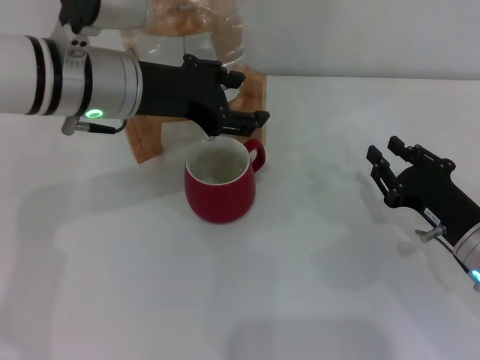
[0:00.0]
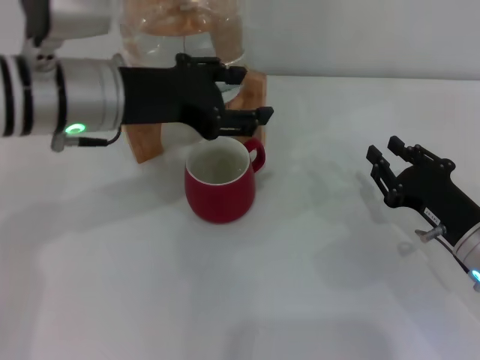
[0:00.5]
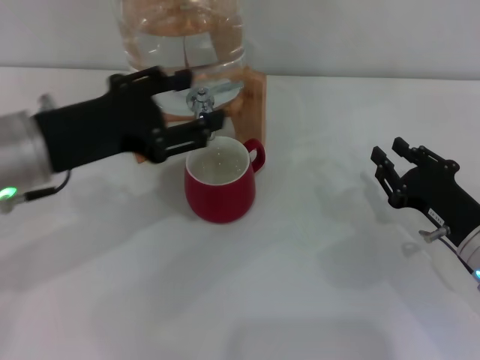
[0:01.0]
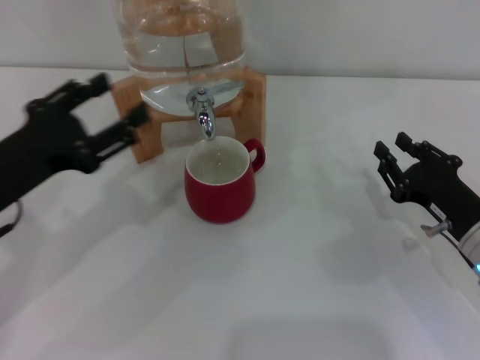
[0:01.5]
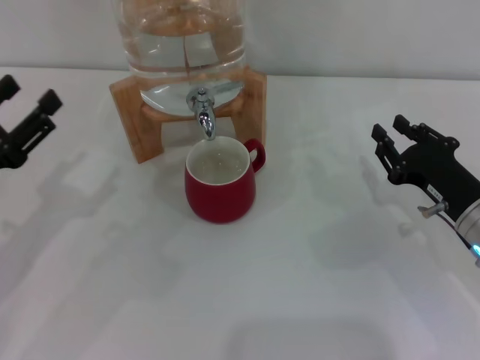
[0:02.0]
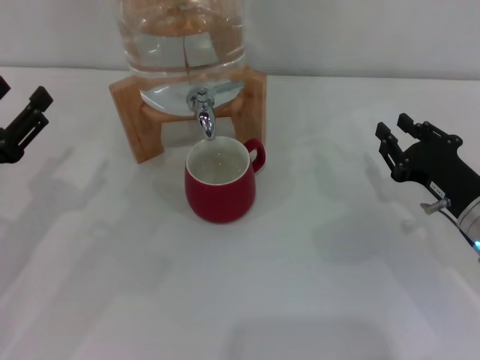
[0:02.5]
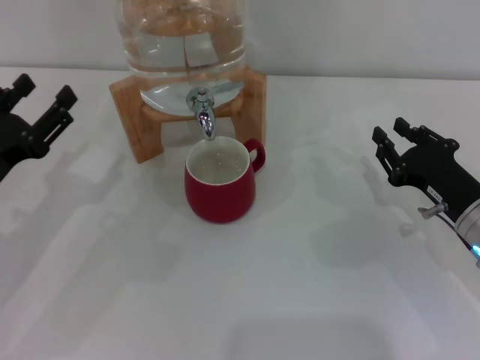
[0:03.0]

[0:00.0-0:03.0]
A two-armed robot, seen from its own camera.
Task of the whole recording: the right gripper pick up the red cup and place it horizontally under the faucet, the left gripper turn on the faucet to fill the cup, and then turn off the faucet.
0:00.0 to 0:01.5: The left gripper heads backward, to the left and downward, covering approximately 15 cm.
0:01.5 to 0:03.0: The left gripper shifts some 5 cm downward.
